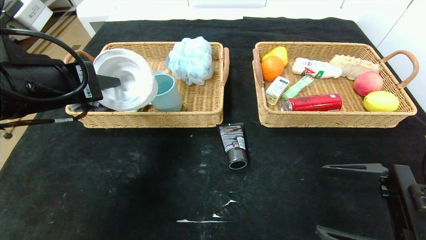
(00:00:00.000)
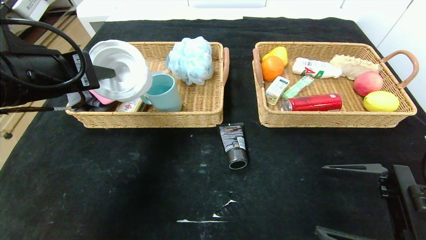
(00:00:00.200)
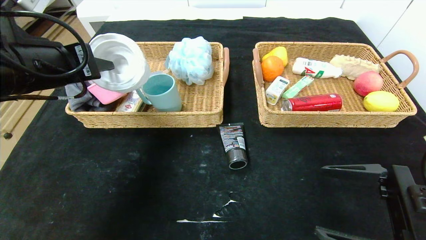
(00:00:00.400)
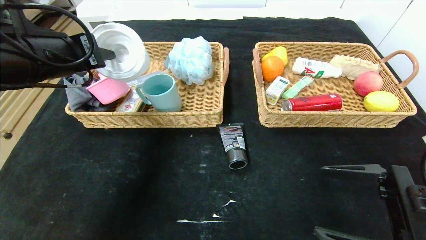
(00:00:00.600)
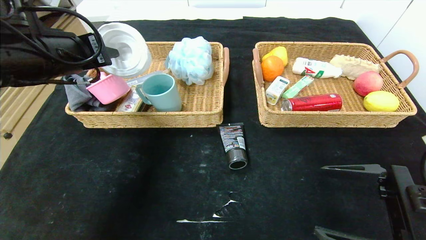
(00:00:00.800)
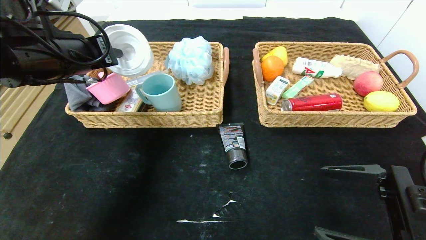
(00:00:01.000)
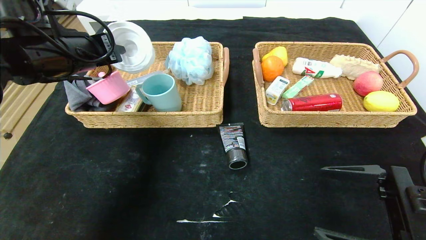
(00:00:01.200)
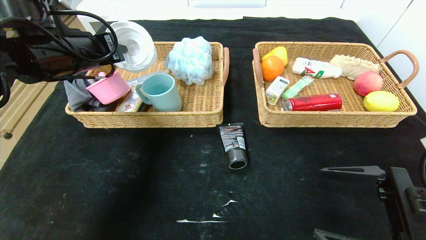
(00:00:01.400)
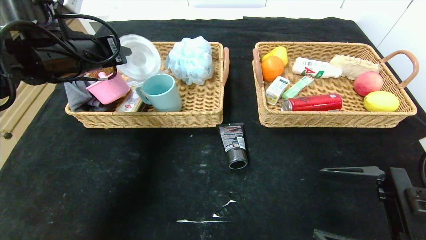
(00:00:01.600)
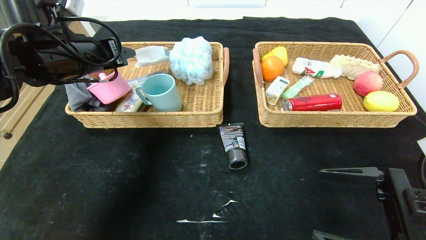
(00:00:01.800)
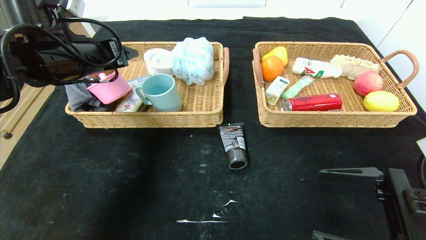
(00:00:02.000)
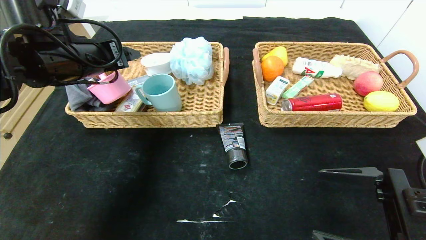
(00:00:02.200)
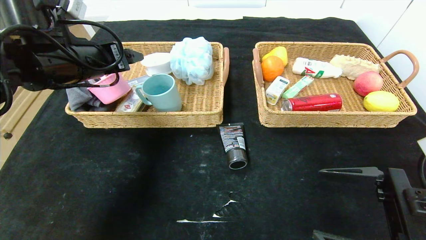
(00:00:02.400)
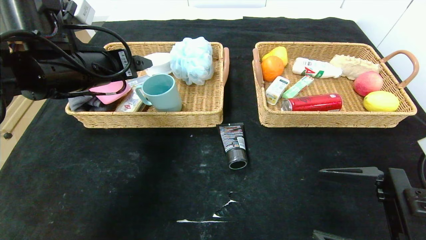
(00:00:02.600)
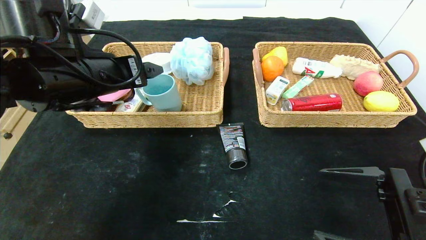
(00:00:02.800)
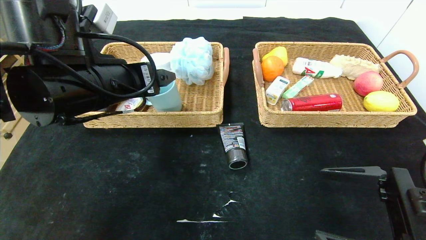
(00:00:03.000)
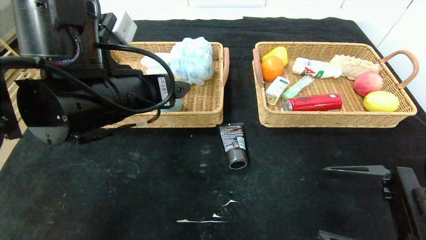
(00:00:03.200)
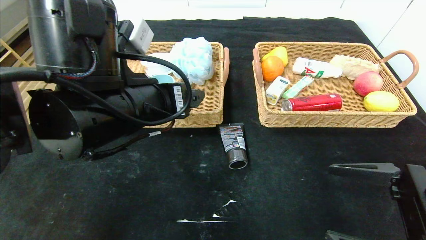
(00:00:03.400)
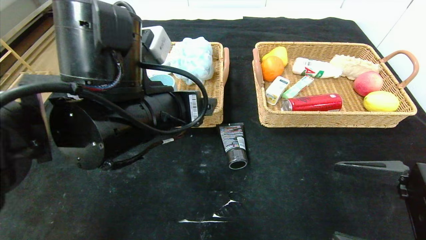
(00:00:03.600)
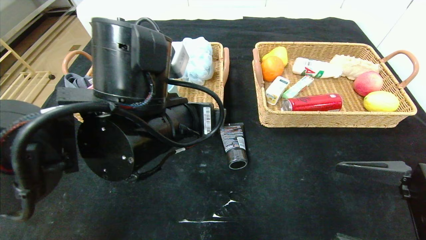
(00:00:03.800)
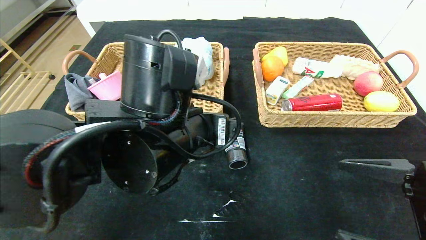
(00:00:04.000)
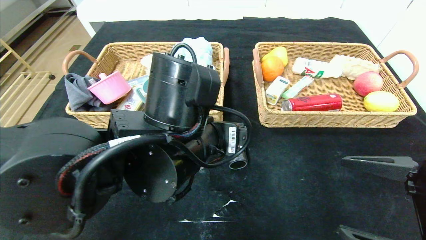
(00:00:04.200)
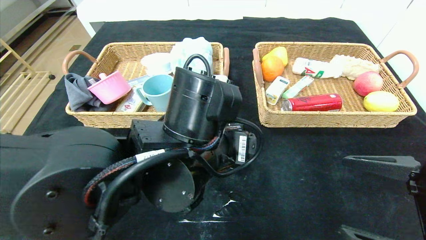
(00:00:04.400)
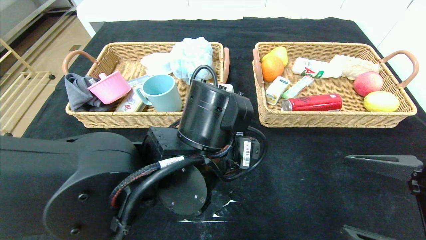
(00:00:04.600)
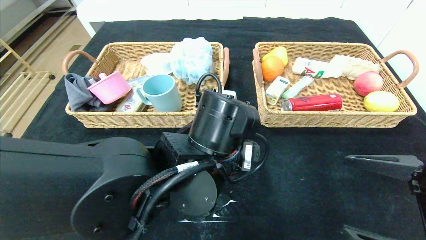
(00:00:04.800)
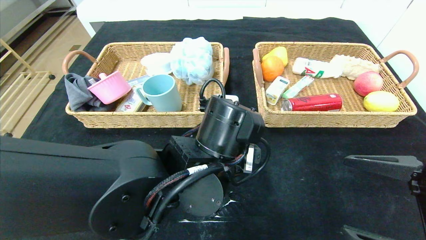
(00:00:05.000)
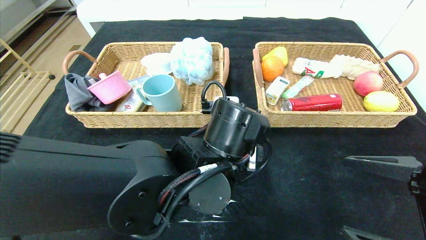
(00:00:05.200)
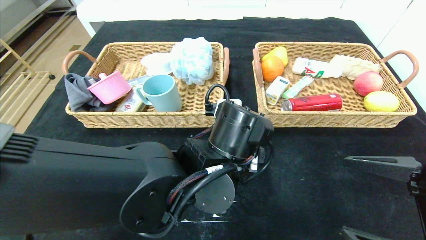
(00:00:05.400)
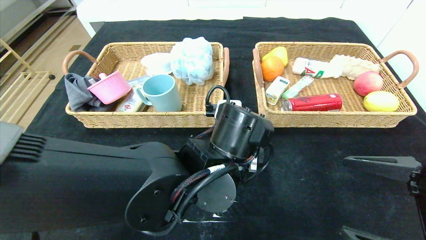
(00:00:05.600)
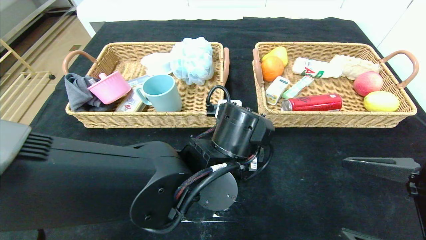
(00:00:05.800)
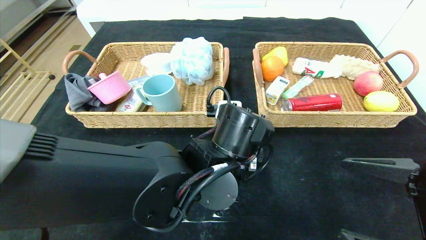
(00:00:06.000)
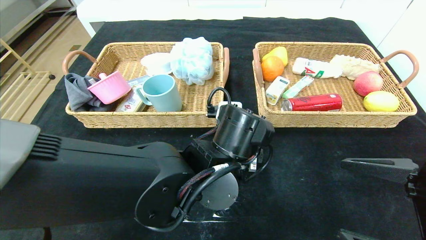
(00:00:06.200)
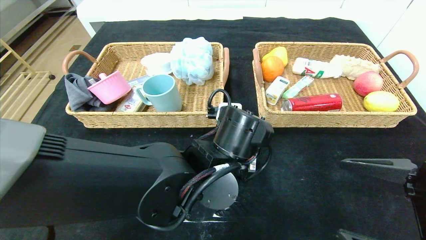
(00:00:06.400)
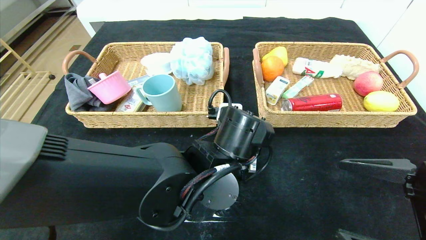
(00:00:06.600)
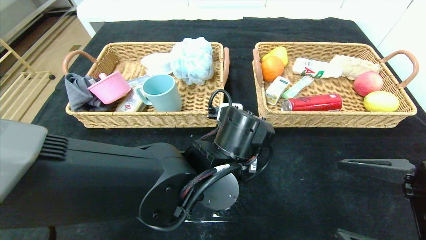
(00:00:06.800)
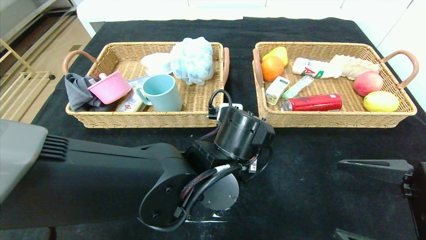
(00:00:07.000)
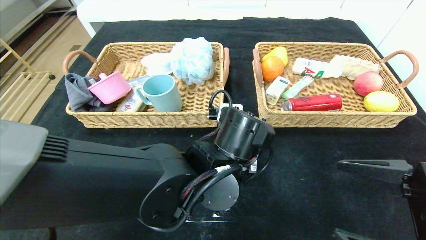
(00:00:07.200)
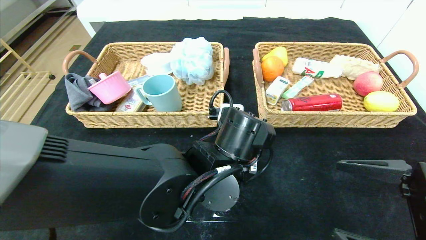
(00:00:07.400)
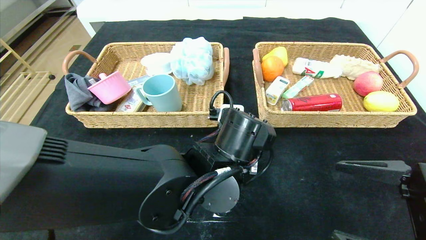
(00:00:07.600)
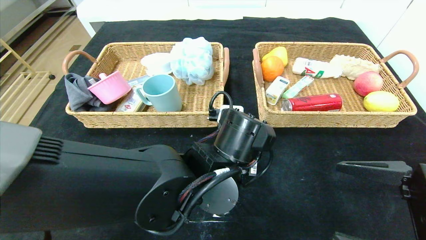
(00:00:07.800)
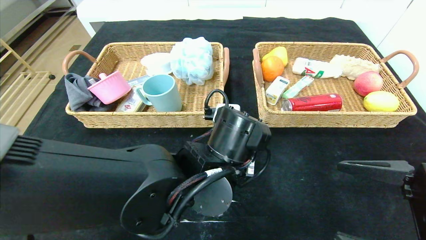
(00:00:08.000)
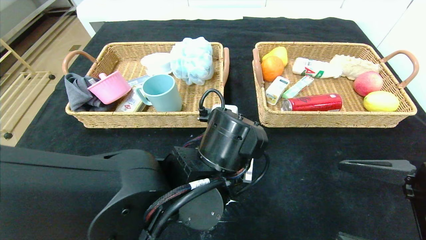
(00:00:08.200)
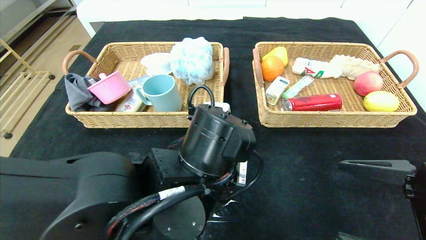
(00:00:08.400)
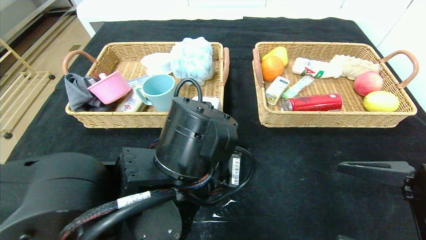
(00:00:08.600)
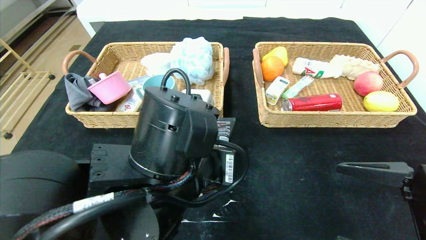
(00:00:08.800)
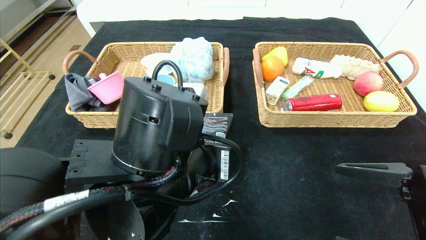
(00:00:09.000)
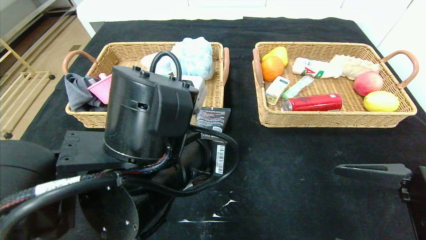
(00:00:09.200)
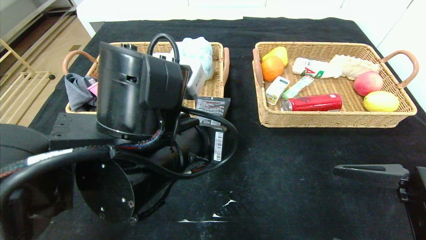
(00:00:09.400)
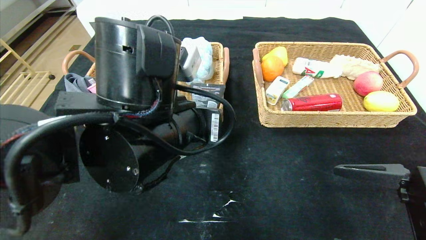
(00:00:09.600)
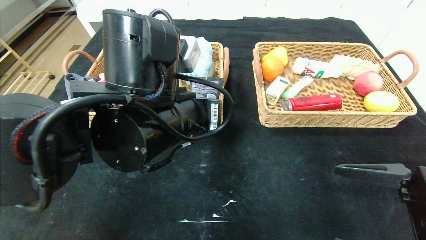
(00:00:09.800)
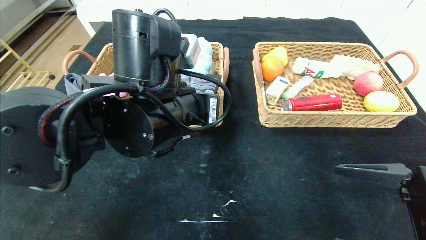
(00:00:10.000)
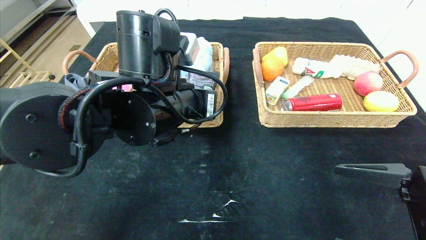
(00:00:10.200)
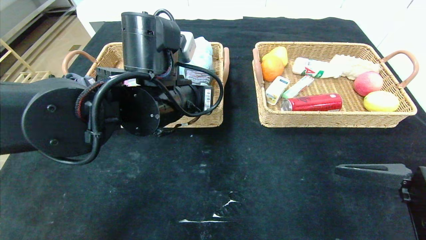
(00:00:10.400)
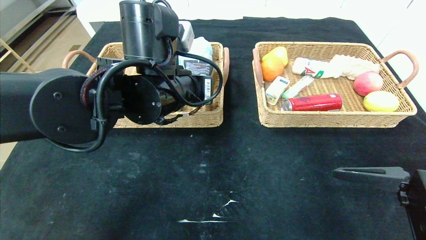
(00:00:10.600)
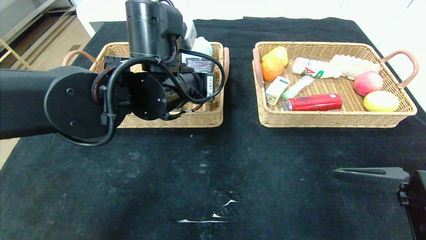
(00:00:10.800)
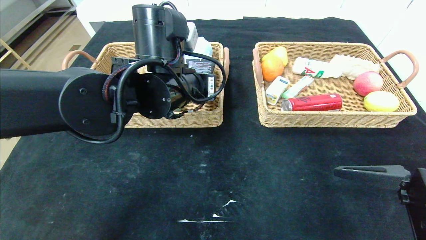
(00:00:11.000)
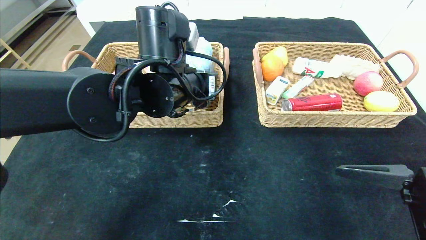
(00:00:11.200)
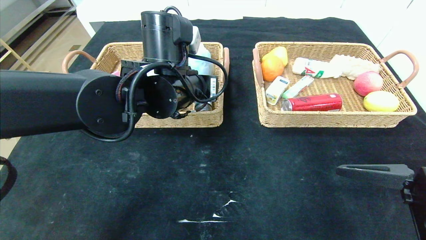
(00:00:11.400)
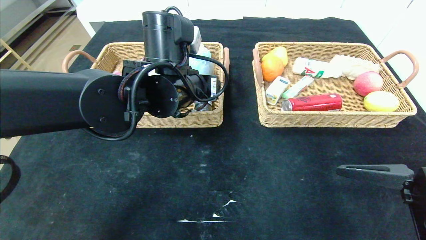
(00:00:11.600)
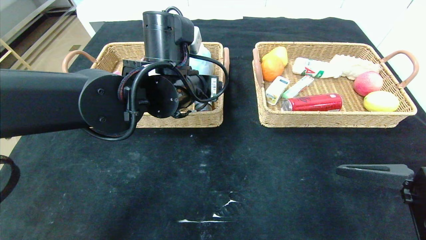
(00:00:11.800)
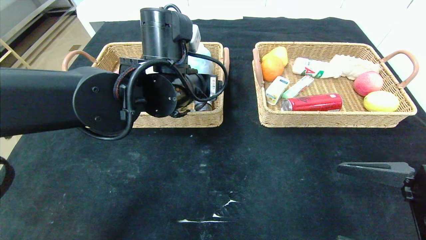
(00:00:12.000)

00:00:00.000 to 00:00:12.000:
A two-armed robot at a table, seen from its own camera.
Step, 00:00:01.800 to 00:00:11.400: Grasp the soft cleanser and put it in the left basket.
00:00:00.000 to 00:00:01.600: The left gripper is displaced forward by roughly 10 cm.
00:00:01.600 to 00:00:03.000: The left gripper moves to the right and backward, some 10 cm, and opens up.
00:00:03.000 to 00:00:04.400: The left gripper shifts roughly 15 cm to the right and downward.
00:00:04.400 to 00:00:06.000: The left gripper ends up roughly 5 cm from where it was.
00:00:06.000 to 00:00:07.600: The left gripper closes up.
00:00:07.600 to 00:00:09.000: The left gripper goes about 10 cm to the left, backward and upward.
00:00:09.000 to 00:00:10.400: The left gripper is displaced forward by some 10 cm.
00:00:10.400 to 00:00:12.000: The left gripper opens its fingers.

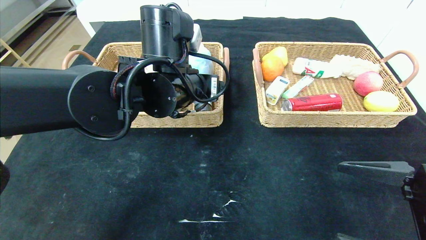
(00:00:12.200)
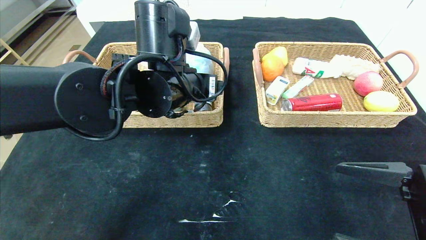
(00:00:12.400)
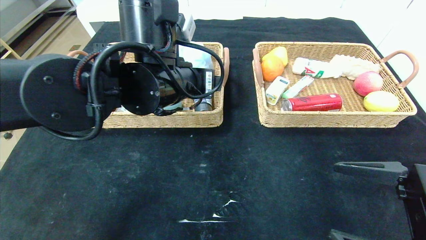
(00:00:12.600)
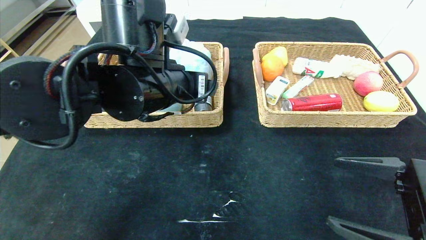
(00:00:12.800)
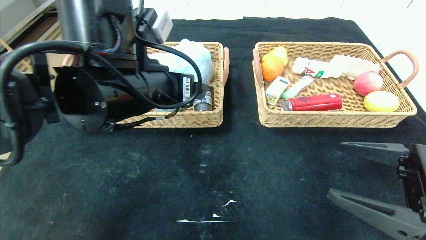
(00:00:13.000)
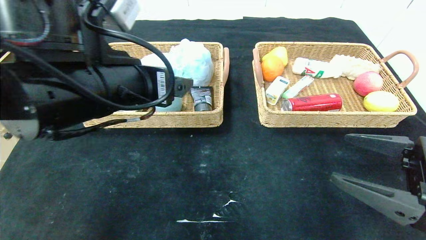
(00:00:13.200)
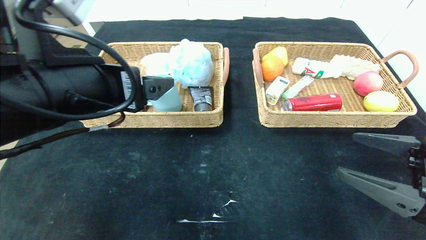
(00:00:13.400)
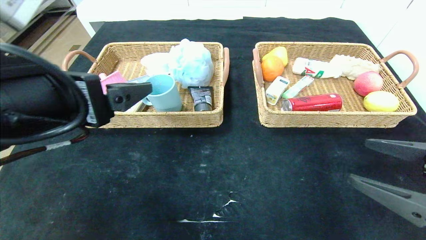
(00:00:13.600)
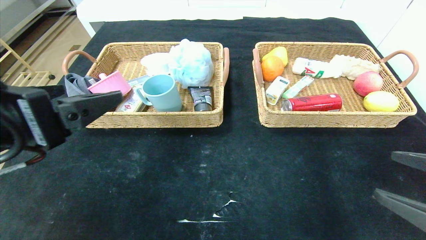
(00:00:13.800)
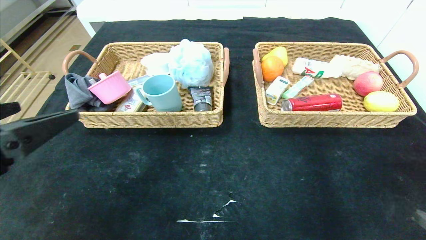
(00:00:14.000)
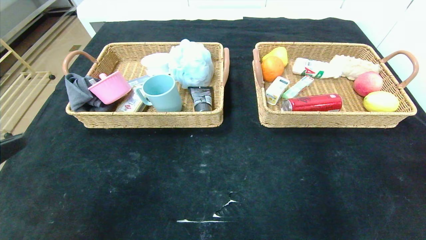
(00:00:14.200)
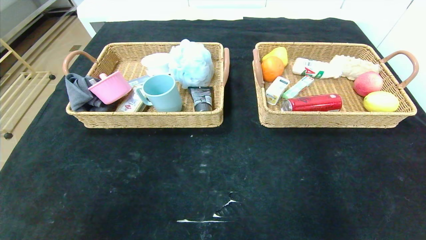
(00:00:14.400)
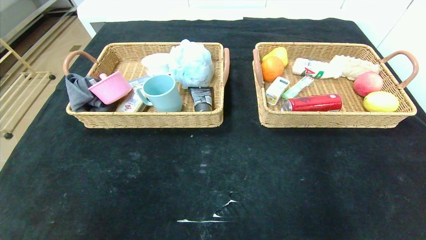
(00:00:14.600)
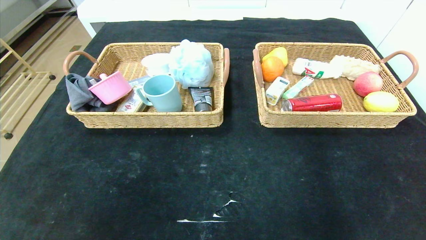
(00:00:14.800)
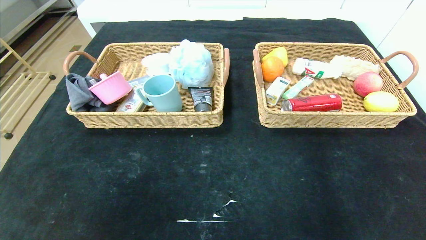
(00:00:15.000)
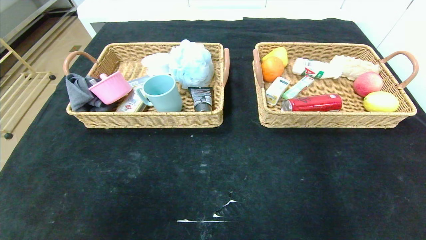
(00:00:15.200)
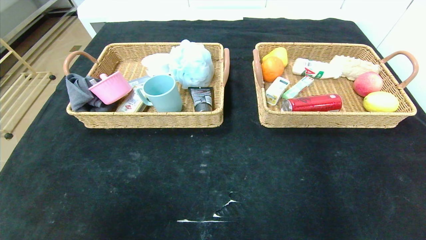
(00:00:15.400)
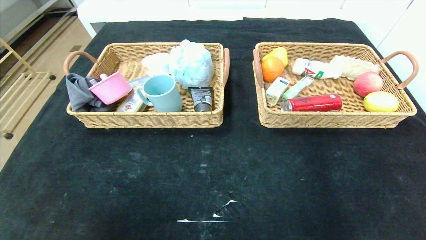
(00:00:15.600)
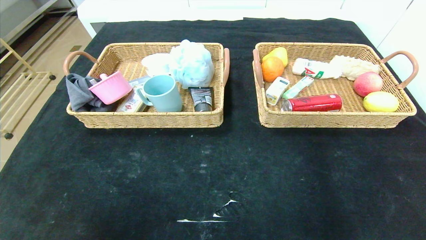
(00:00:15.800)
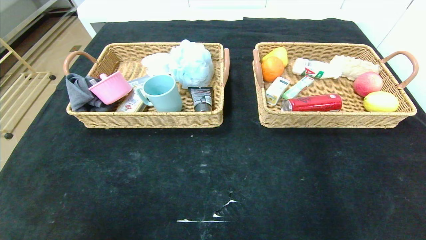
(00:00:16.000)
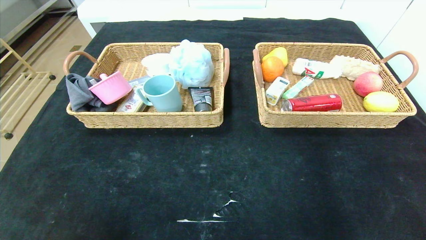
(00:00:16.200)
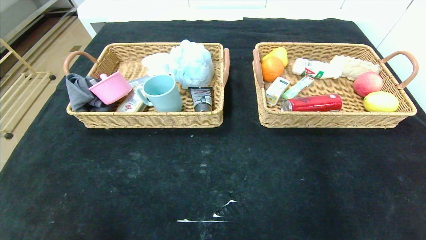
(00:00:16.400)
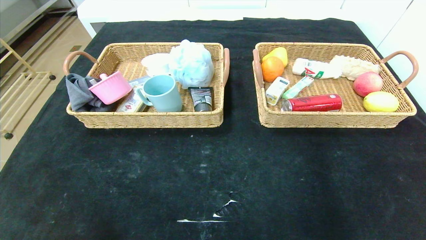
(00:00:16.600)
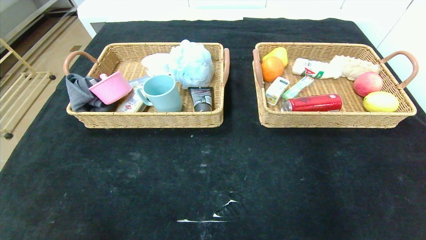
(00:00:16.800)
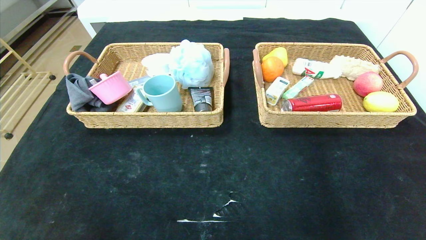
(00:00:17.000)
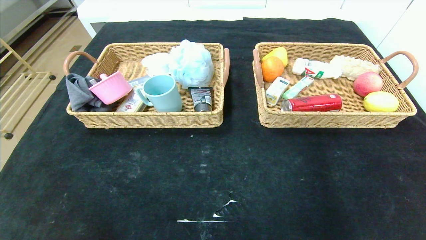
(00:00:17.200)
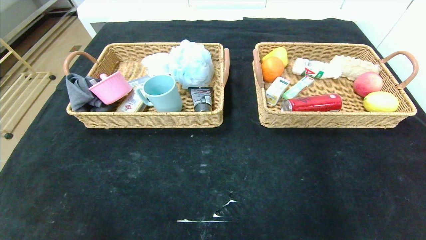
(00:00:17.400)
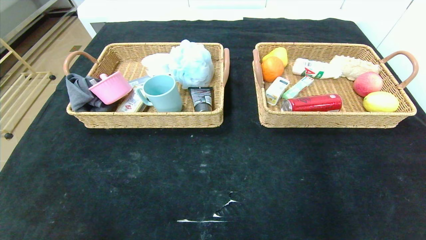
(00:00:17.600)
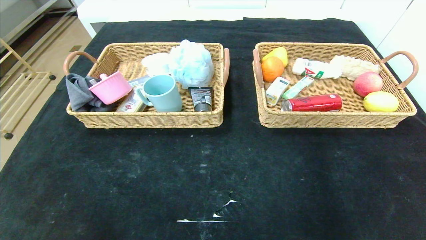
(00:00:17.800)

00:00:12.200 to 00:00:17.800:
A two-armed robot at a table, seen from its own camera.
00:00:12.200 to 00:00:13.600: The left gripper travels backward and to the left by some 20 cm.
00:00:13.600 to 00:00:15.000: The left gripper is displaced backward and to the left by roughly 25 cm. The right gripper is displaced backward by approximately 20 cm.
